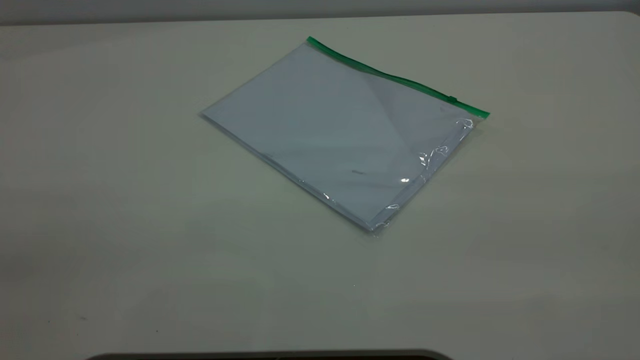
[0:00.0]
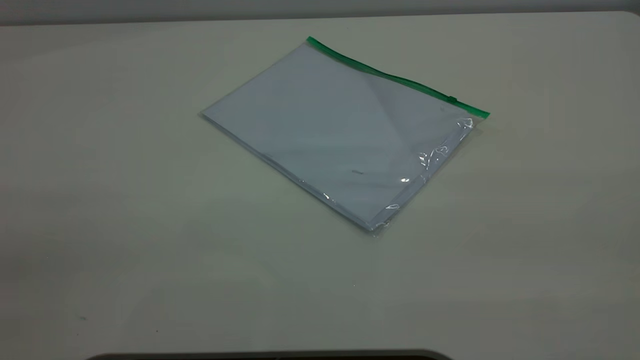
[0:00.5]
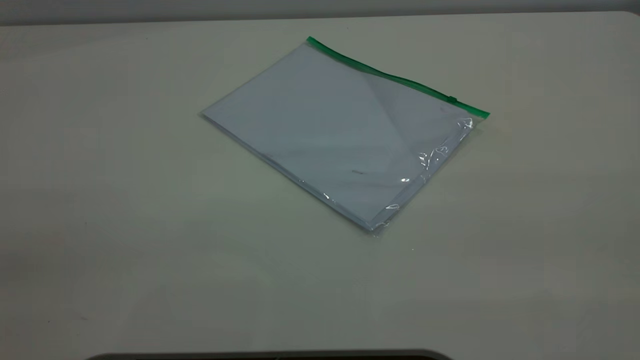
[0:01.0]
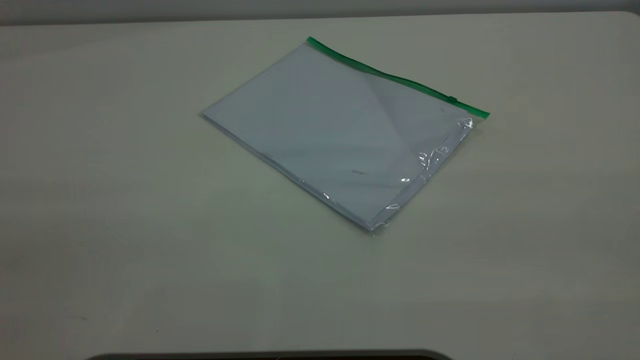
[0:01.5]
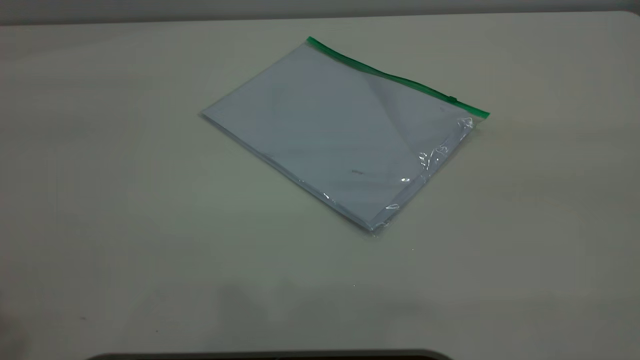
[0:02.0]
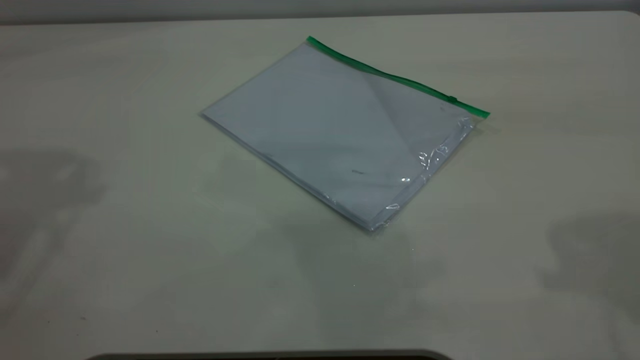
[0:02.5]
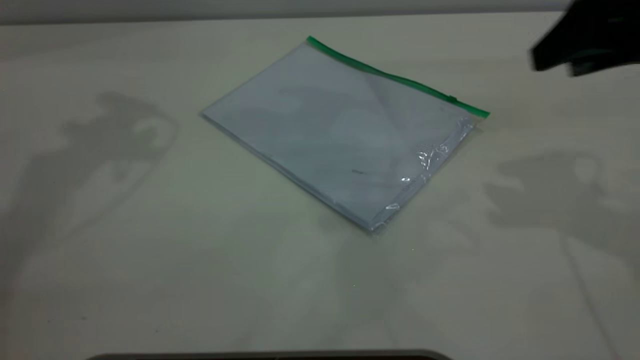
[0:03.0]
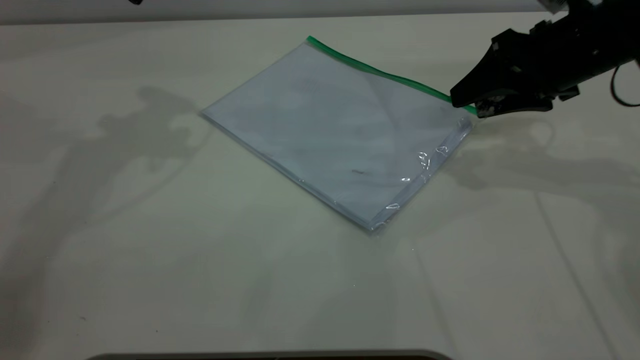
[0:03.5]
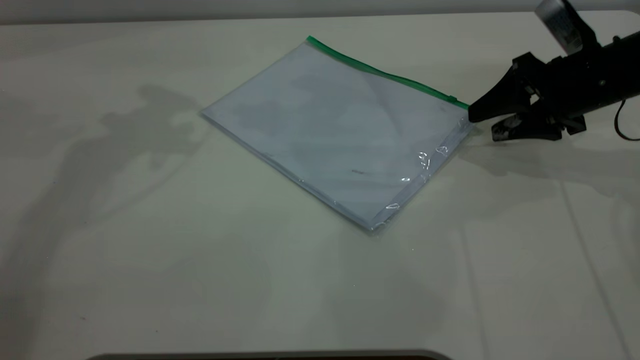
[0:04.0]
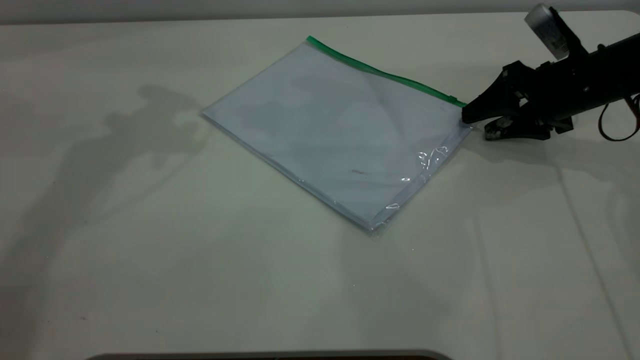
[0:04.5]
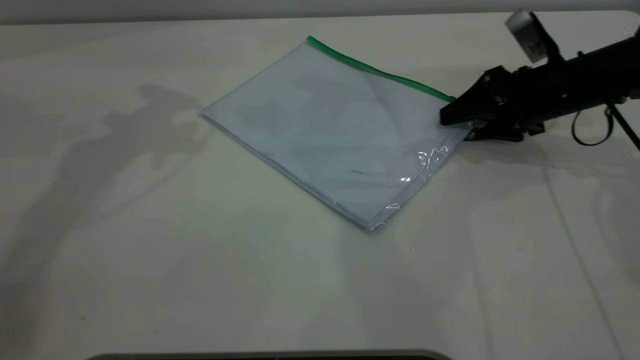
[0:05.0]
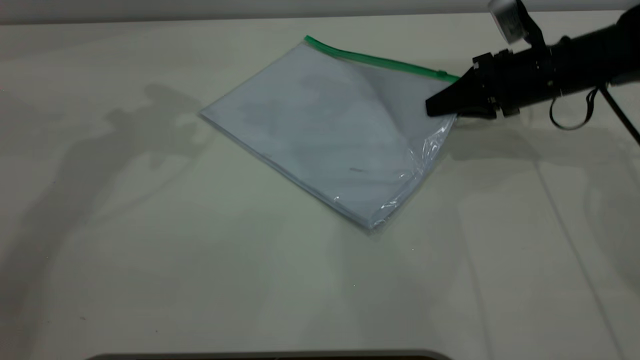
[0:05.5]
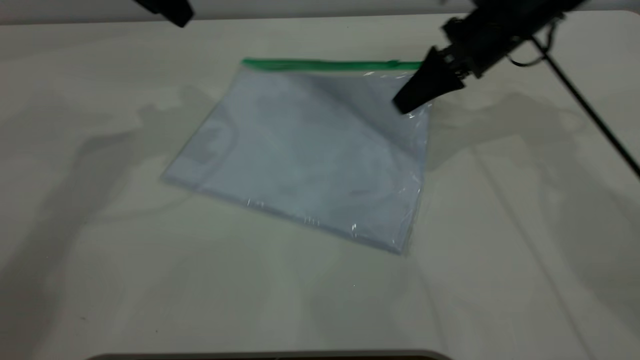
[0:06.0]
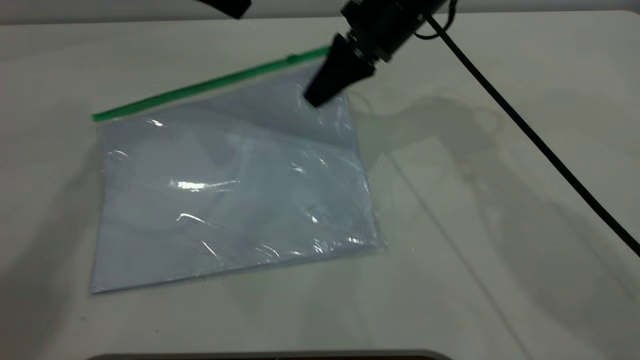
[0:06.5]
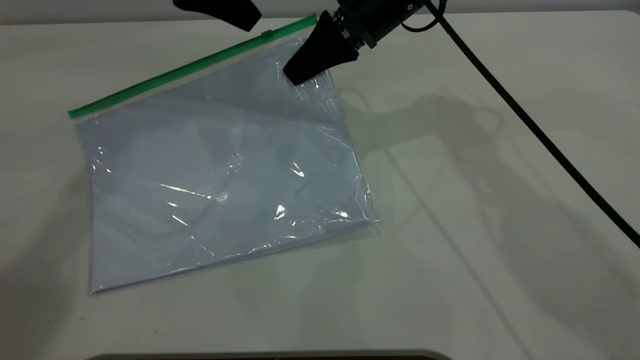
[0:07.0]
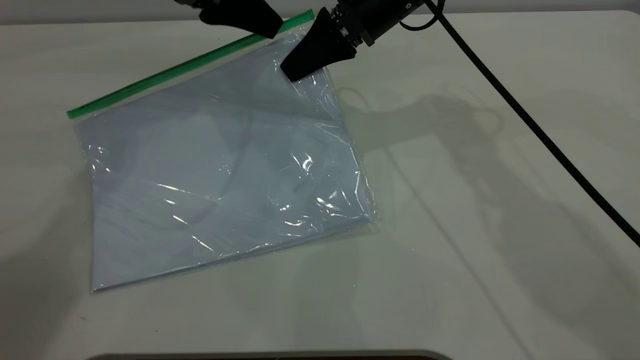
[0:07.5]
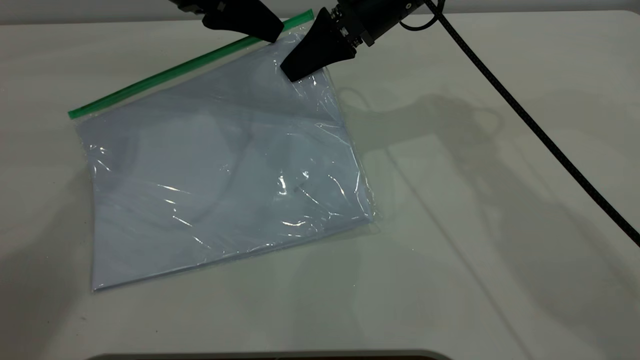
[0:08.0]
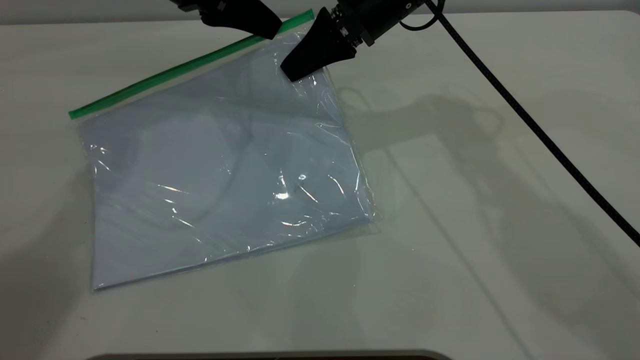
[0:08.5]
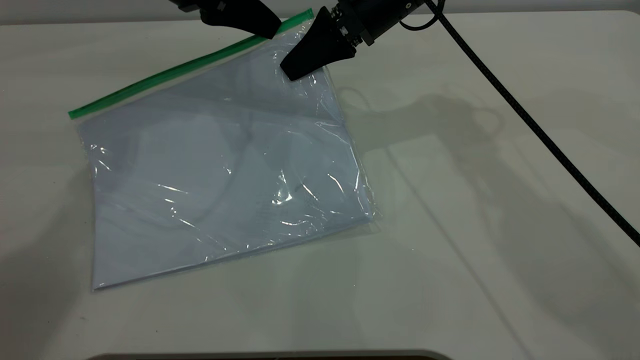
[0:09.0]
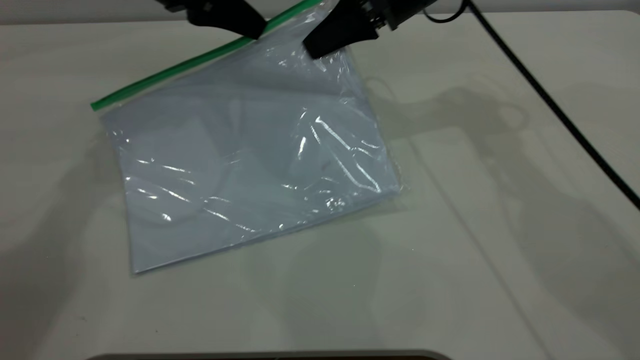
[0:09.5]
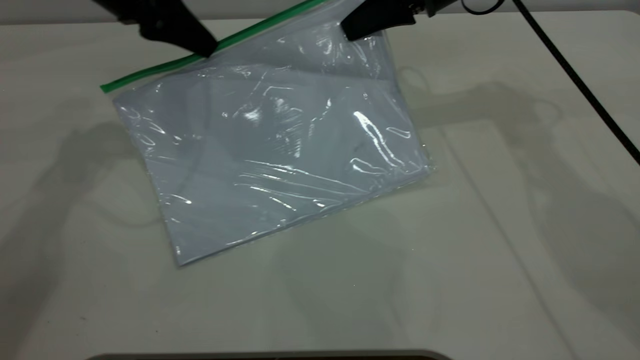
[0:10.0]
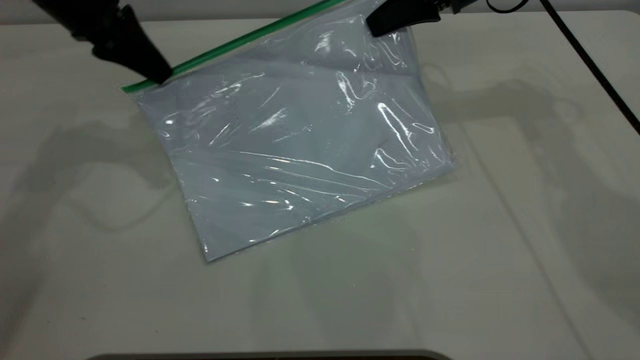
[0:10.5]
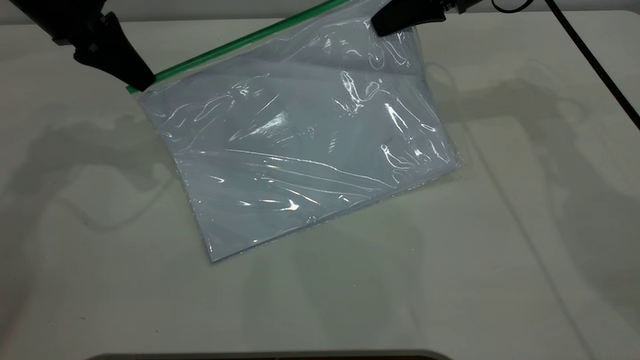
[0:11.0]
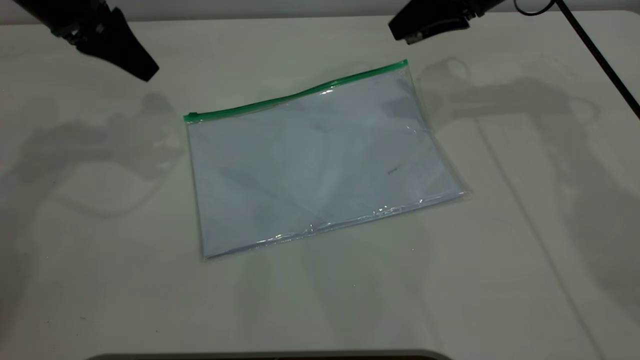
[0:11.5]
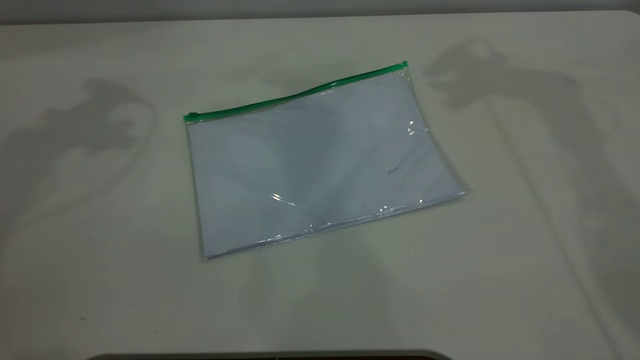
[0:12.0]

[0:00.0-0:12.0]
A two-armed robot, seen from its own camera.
Step, 0:00.0 to 0:05.0: Pick up the transparent plastic bag with the right gripper.
Step, 0:05.5 to 0:11.0: Pulling up the zipper on the transparent plastic bag with the left gripper to close it.
0:02.0 to 0:04.0: The right gripper is displaced forward and downward by roughly 50 cm.
0:04.0 to 0:06.0: The right gripper heads to the left and forward, covering roughly 15 cm, and closes up.
0:06.0 to 0:08.0: The right gripper shifts approximately 10 cm to the left, while the left gripper shifts by some 5 cm.
0:08.0 to 0:10.0: The left gripper goes approximately 5 cm to the left, and closes its fingers. Meanwhile the right gripper goes some 10 cm to the right.
0:10.0 to 0:12.0: The right gripper is displaced upward by some 20 cm, and opens its fingers. Meanwhile the left gripper heads upward and to the left, covering about 20 cm, and opens its fingers.

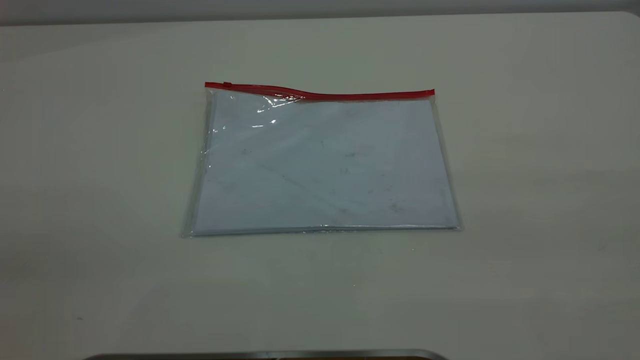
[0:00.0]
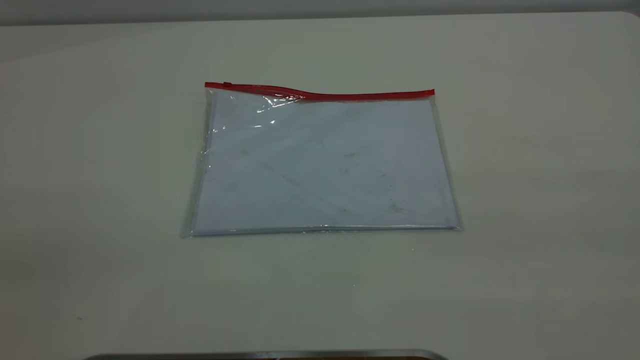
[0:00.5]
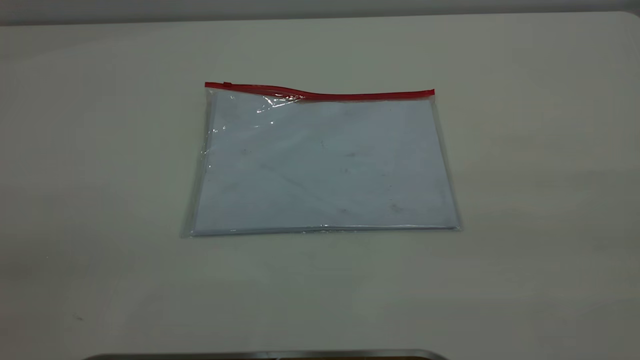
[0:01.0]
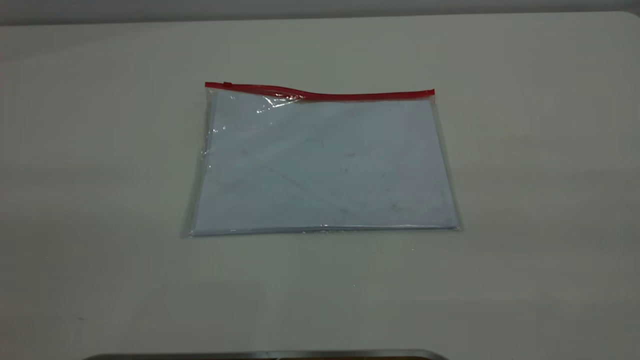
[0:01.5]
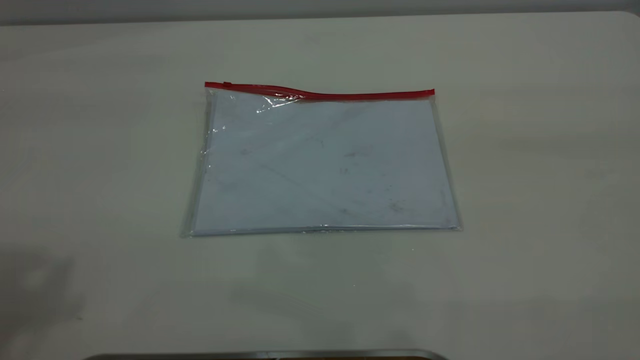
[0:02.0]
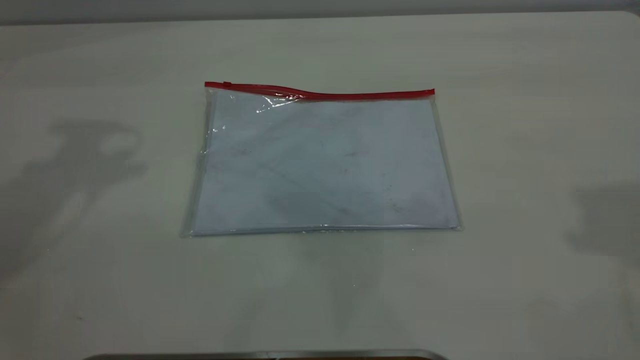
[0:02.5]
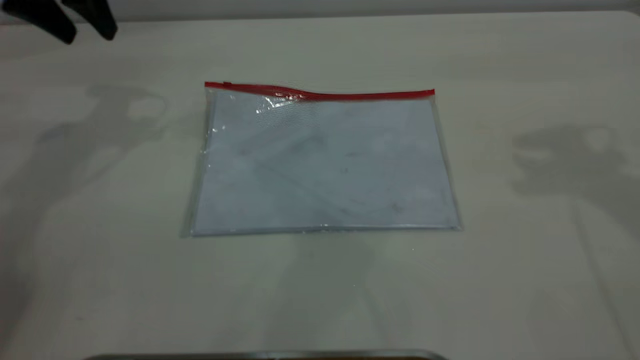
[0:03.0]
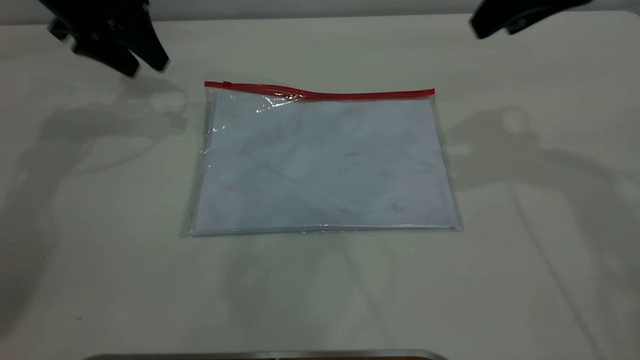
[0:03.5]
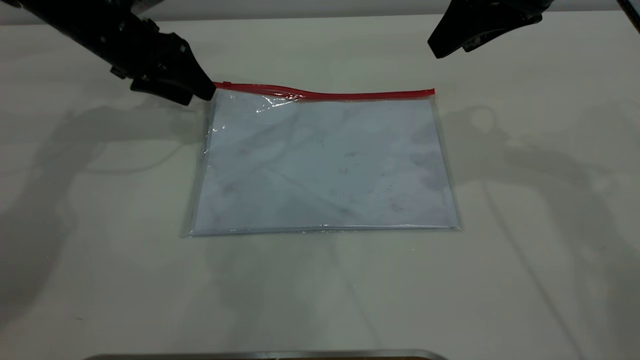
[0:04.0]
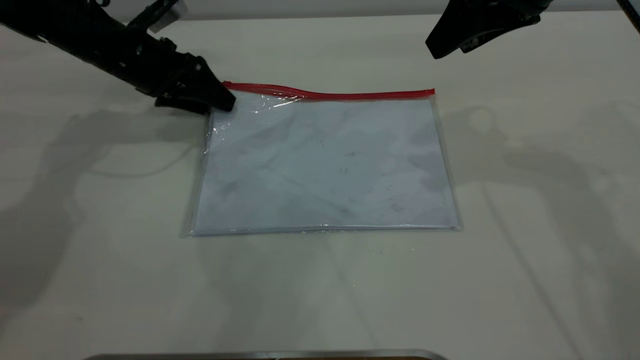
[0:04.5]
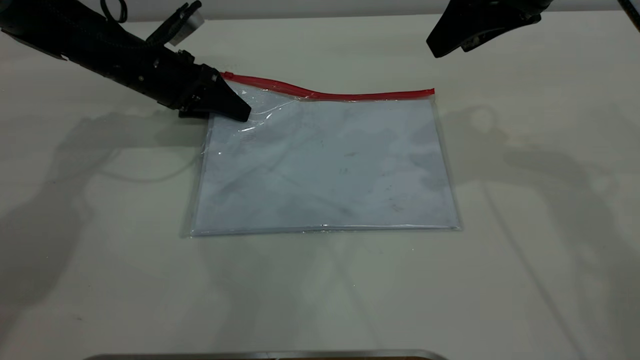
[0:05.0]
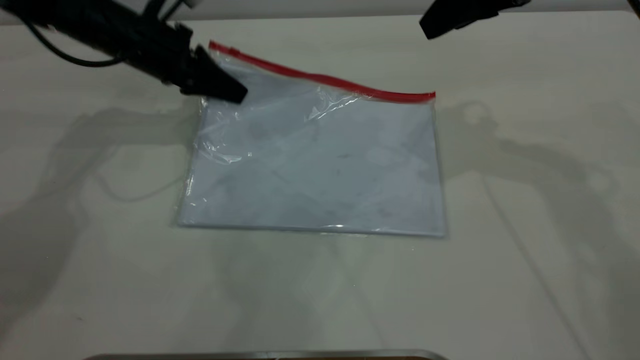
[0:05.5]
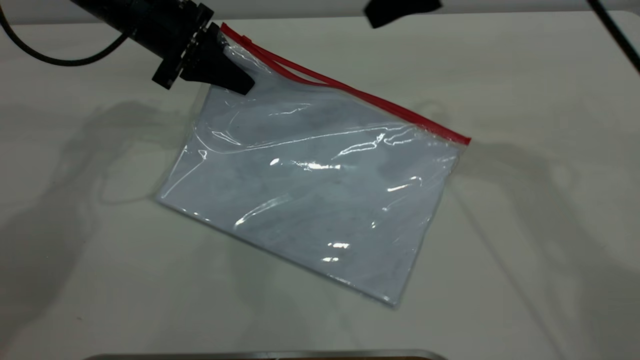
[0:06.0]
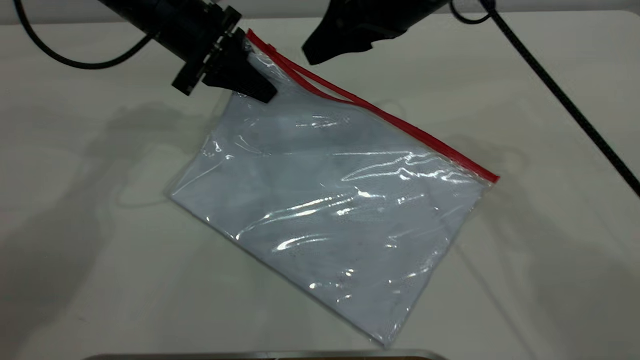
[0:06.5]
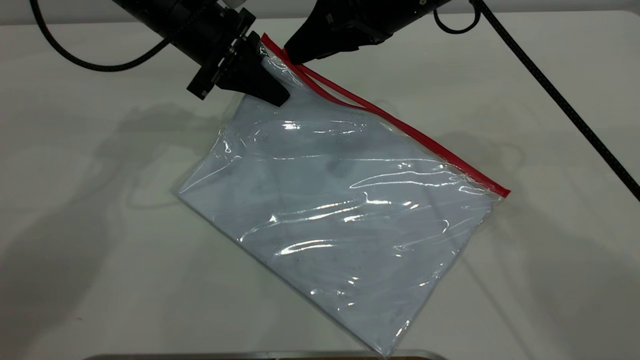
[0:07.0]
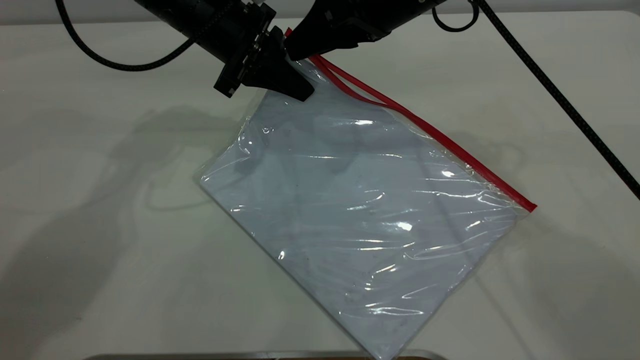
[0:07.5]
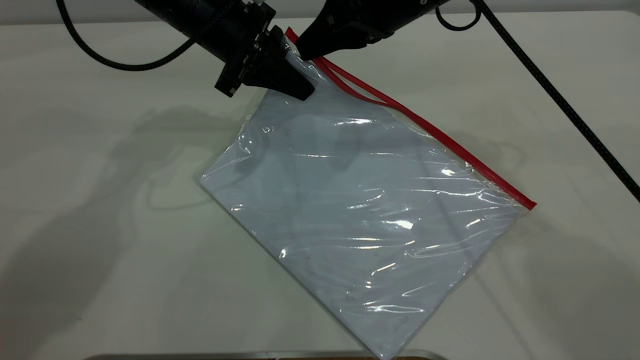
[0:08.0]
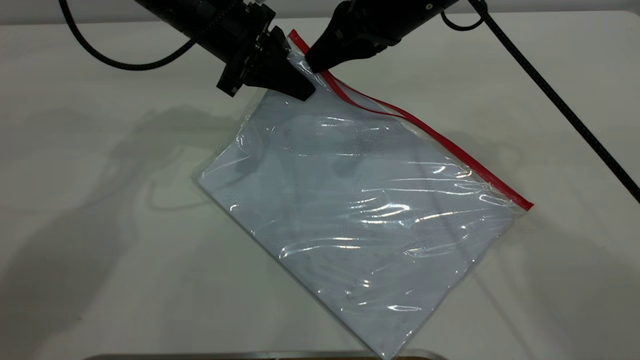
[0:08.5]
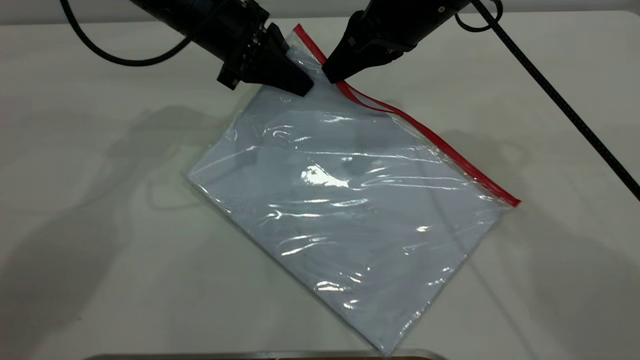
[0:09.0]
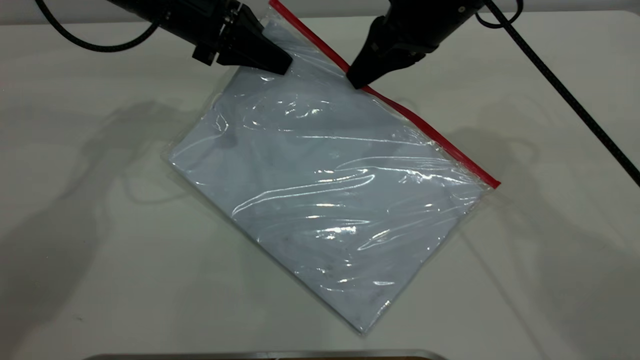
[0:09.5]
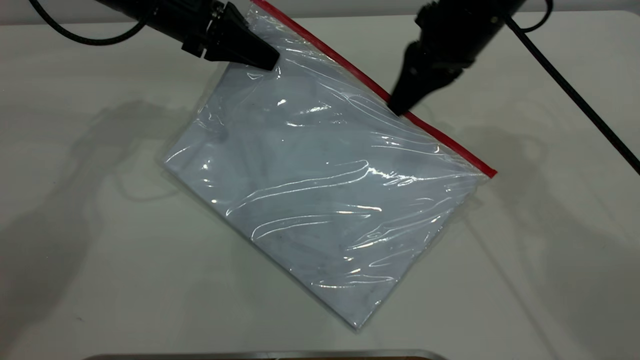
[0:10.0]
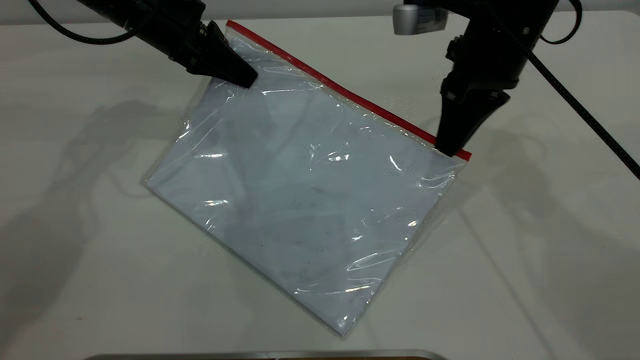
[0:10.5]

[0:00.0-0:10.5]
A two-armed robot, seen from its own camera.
Step, 0:00.0 to 0:05.5: Pick up the transparent plastic bag with the left gripper.
0:02.0 to 0:04.0: The right gripper shifts some 35 cm forward and downward. Meanwhile the left gripper travels downward and forward by approximately 40 cm.
0:04.0 to 0:06.5: The right gripper goes roughly 10 cm to the left. The left gripper travels to the right by approximately 10 cm, and closes up.
0:06.5 to 0:08.5: The right gripper closes its fingers.
0:08.5 to 0:10.5: The left gripper shifts approximately 5 cm to the left. The right gripper travels to the right by some 5 cm.
